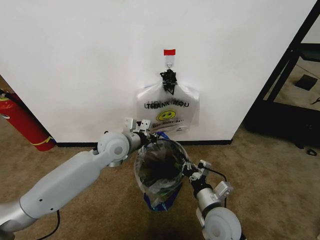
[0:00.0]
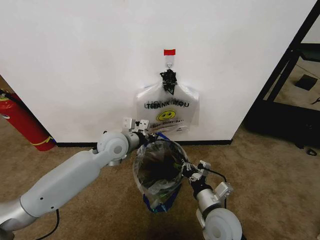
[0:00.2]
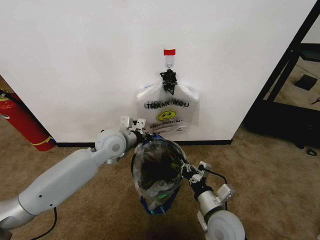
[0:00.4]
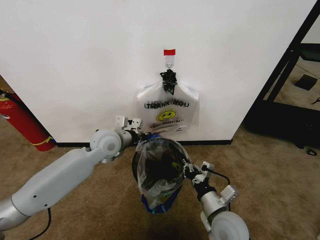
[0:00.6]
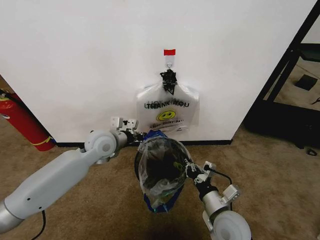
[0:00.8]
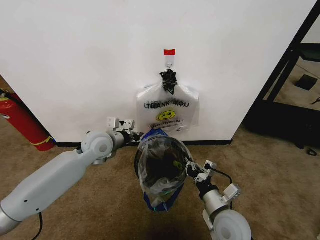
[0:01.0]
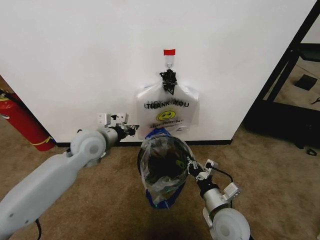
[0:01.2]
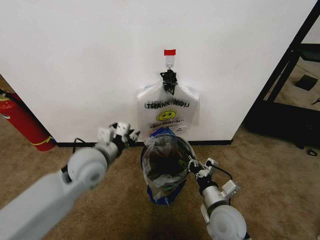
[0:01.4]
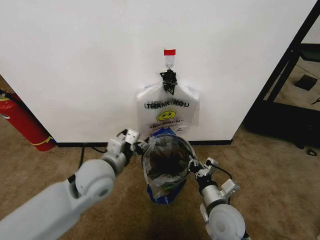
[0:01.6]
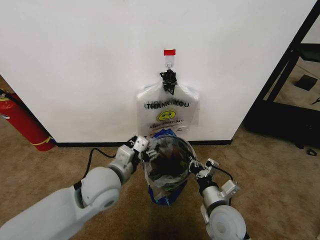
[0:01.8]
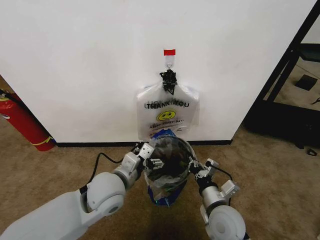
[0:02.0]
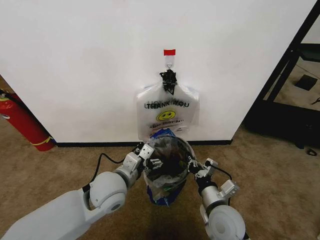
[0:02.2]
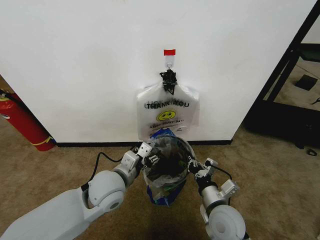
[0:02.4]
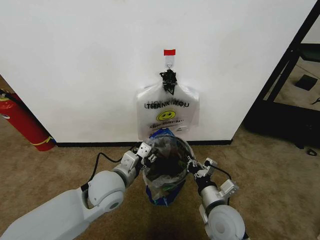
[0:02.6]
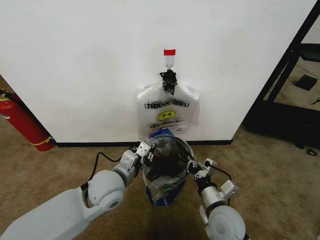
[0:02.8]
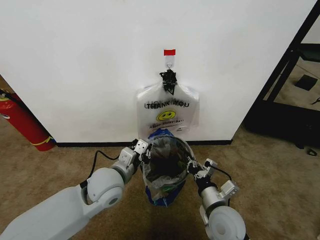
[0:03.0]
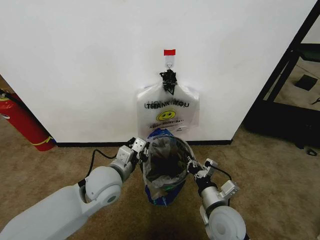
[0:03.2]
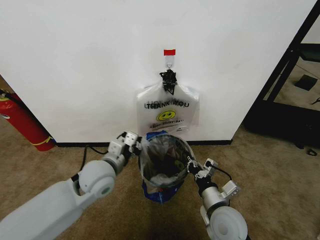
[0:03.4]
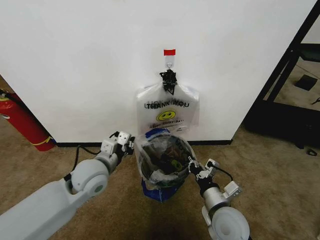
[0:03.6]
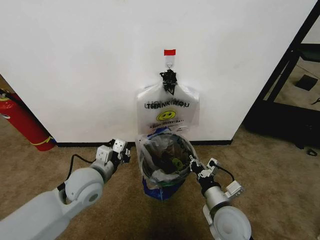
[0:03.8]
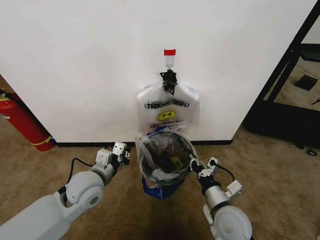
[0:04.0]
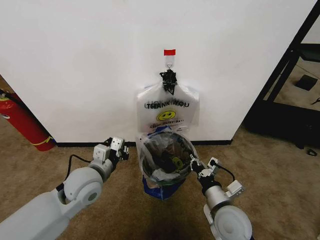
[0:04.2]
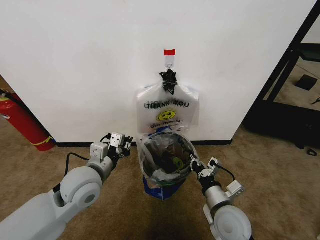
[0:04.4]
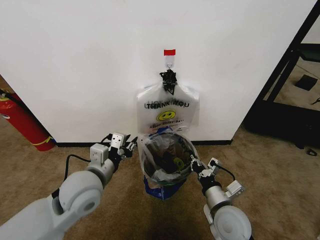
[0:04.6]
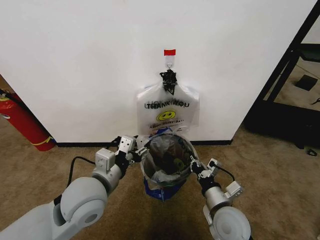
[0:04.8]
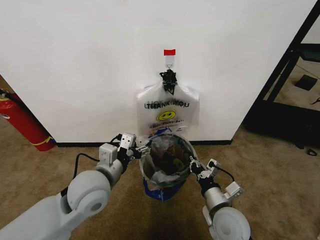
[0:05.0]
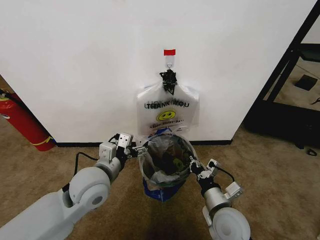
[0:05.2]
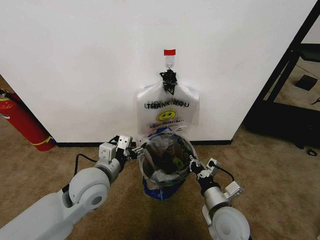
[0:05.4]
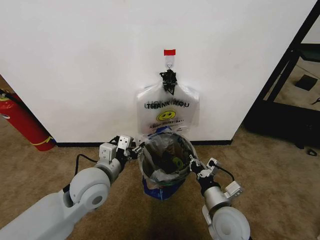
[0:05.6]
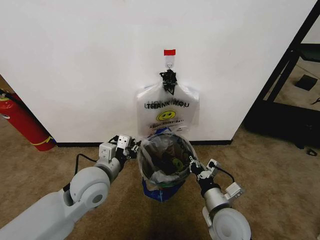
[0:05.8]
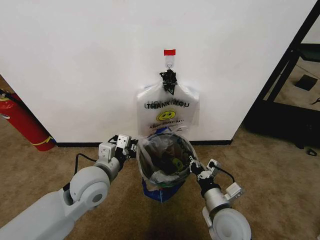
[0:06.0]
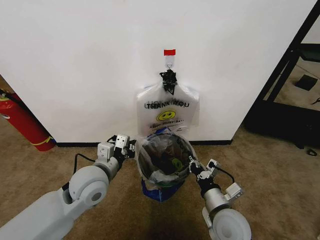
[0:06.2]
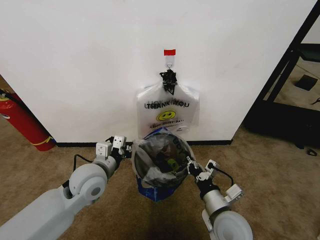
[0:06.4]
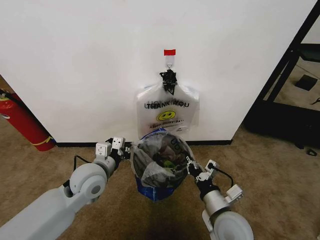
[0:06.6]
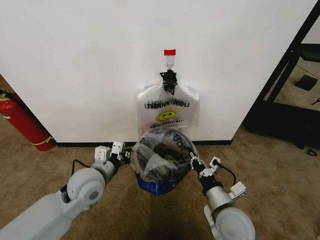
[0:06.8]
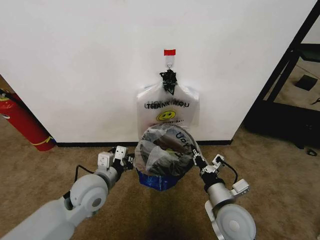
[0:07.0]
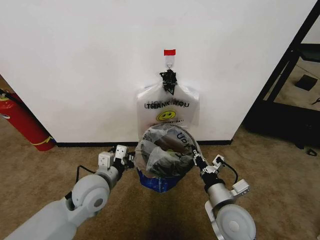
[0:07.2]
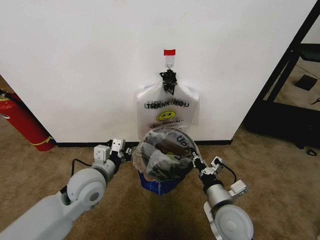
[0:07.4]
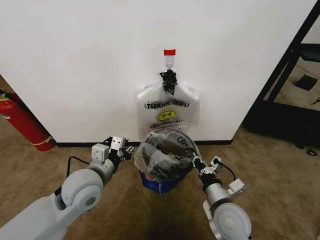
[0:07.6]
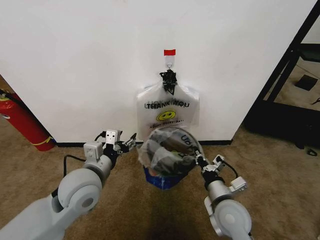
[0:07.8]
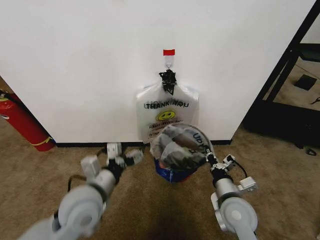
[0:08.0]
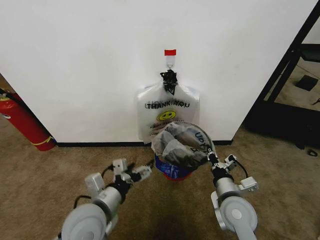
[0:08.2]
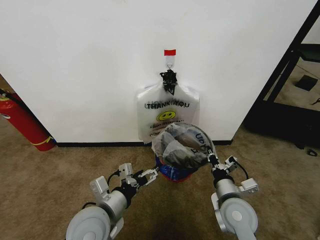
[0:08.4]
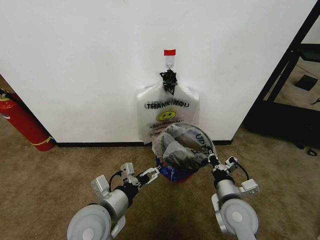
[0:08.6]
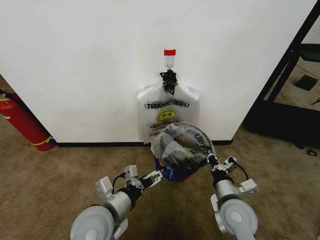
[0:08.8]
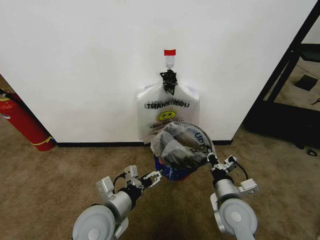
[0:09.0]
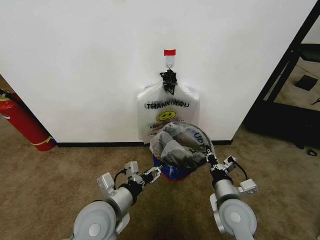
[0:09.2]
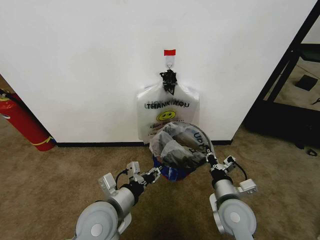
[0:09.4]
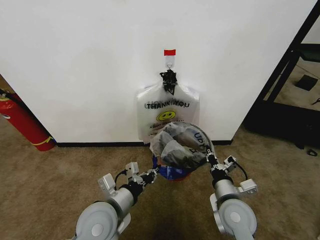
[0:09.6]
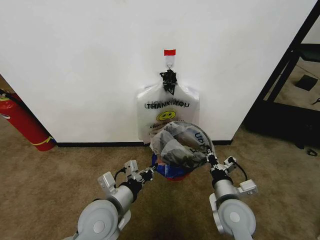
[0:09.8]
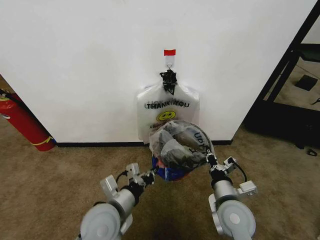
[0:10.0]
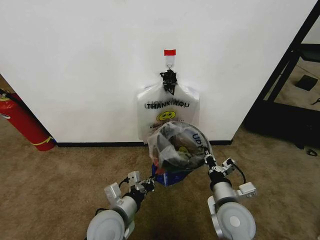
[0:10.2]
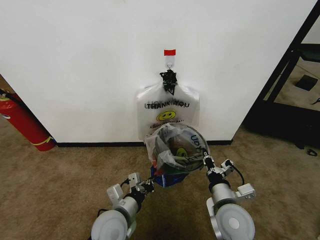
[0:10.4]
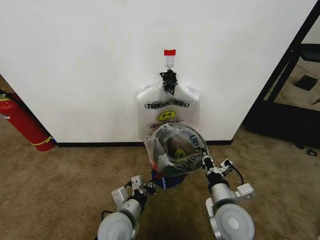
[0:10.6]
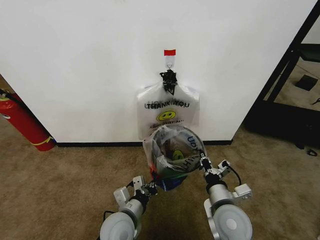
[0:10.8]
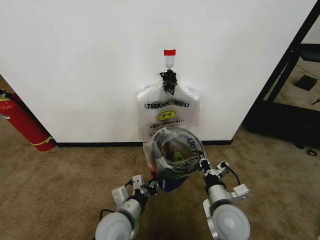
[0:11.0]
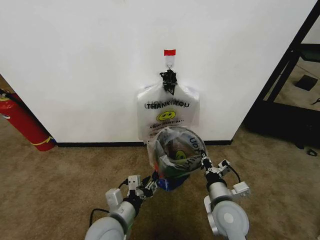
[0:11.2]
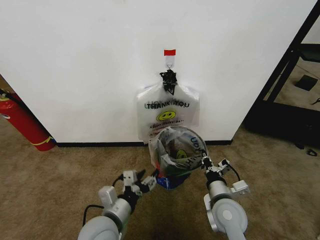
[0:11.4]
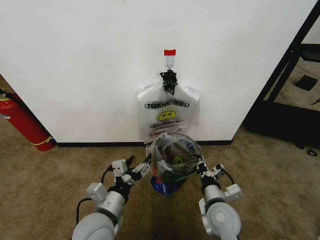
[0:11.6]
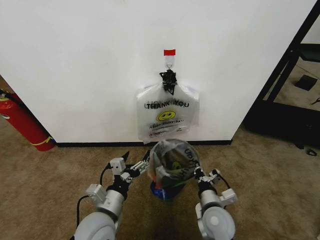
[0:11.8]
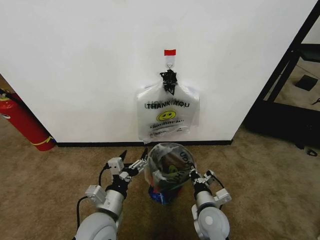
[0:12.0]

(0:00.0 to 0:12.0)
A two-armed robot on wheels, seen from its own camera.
Task of the whole recording: Pick up the garbage bag from the wall and place it over the trash bin.
0:00.0 - 0:01.6: The left gripper moves backward, approximately 10 cm, and opens up.
0:01.6 - 0:03.0: The left gripper closes.
0:03.0 - 0:04.4: The left gripper moves to the left, approximately 5 cm.
0:04.4 - 0:06.0: The left gripper opens, then closes once more.
0:06.0 - 0:07.6: The left gripper opens up.
0:07.6 - 0:09.0: The left gripper travels backward by roughly 10 cm, and opens its fingers.
0:09.0 - 0:10.4: The left gripper is displaced downward by about 5 cm, and closes up.
0:10.4 - 0:12.0: The left gripper opens; the right gripper travels downward by some 10 cm.

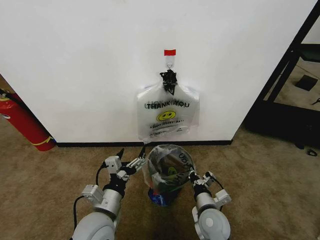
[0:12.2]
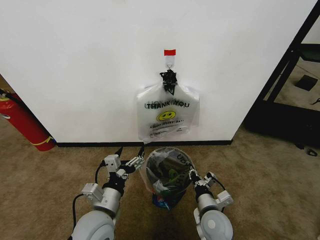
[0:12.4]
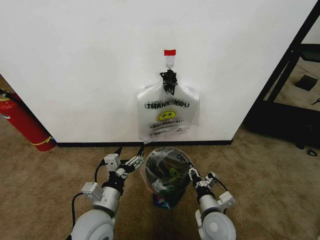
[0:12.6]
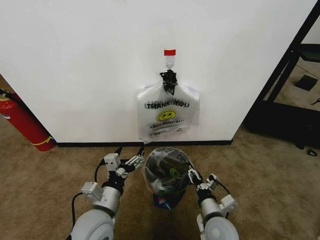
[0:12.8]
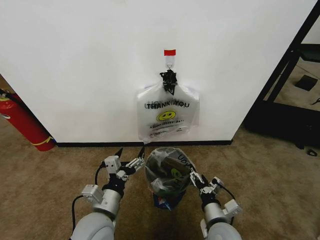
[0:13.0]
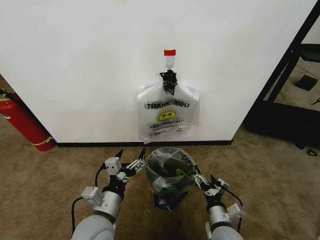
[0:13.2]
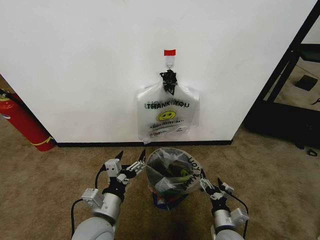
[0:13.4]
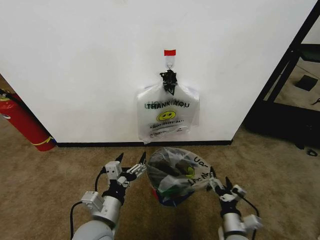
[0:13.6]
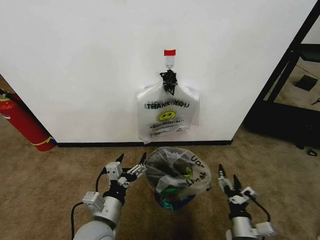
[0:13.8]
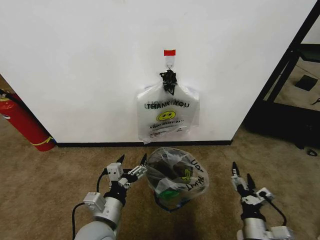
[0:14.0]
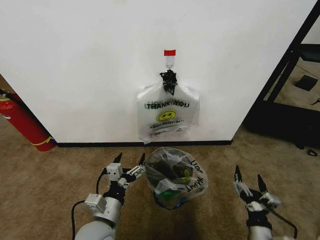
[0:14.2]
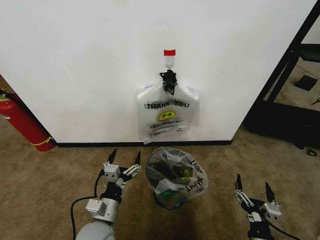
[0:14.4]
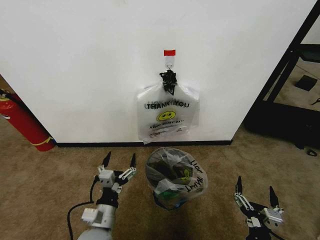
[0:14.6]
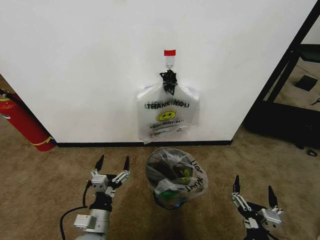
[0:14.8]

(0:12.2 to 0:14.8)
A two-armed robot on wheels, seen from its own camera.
Task of the whole recording: Pick up the garbage bag from the wall and place it over the trash bin.
0:12.2 - 0:13.4: The right gripper heads backward and to the right, covering some 5 cm, and opens.
0:13.4 - 0:14.8: The left gripper is displaced downward by some 10 cm. The right gripper moves backward and upward, about 15 cm.
